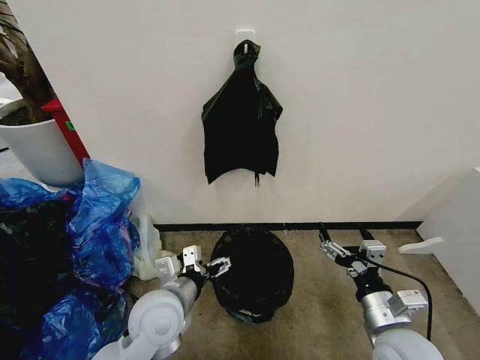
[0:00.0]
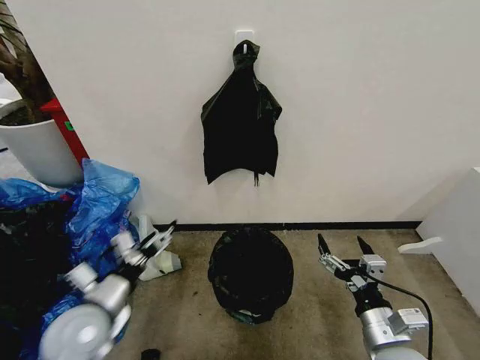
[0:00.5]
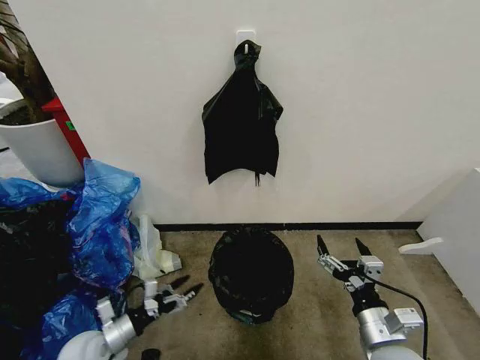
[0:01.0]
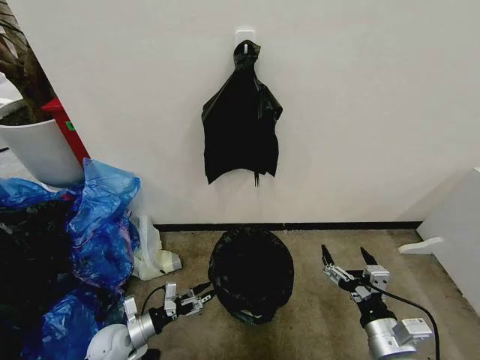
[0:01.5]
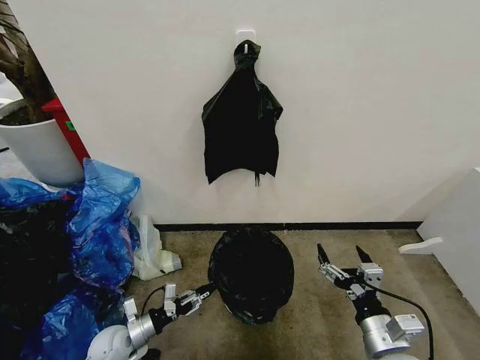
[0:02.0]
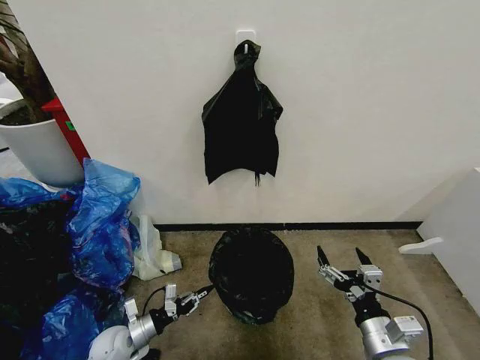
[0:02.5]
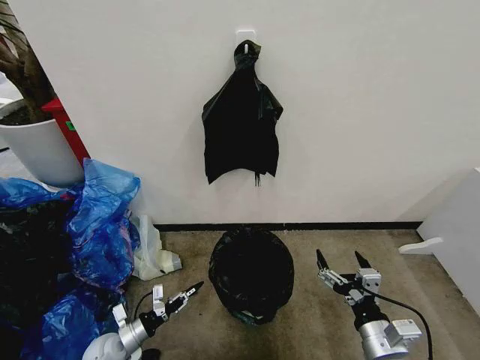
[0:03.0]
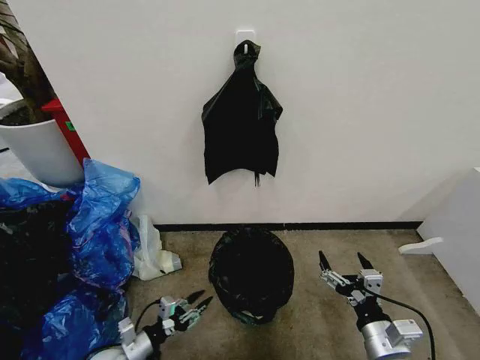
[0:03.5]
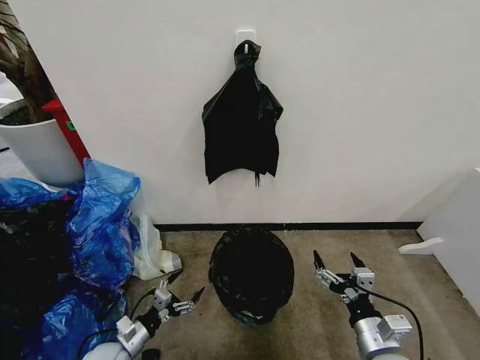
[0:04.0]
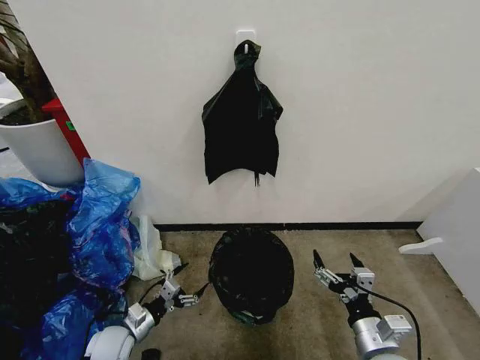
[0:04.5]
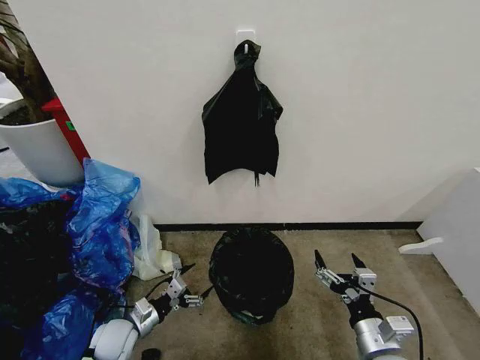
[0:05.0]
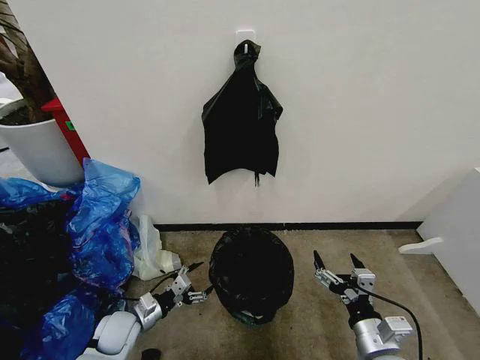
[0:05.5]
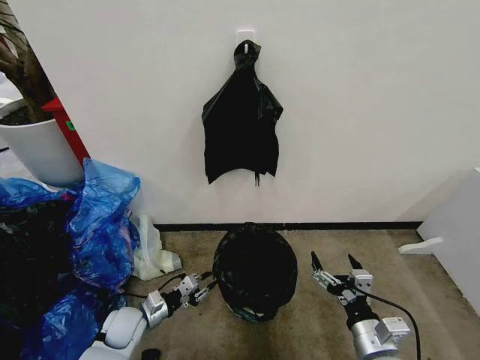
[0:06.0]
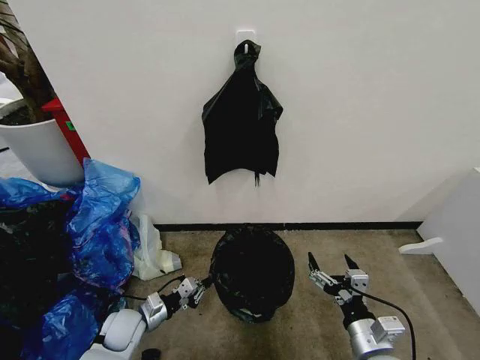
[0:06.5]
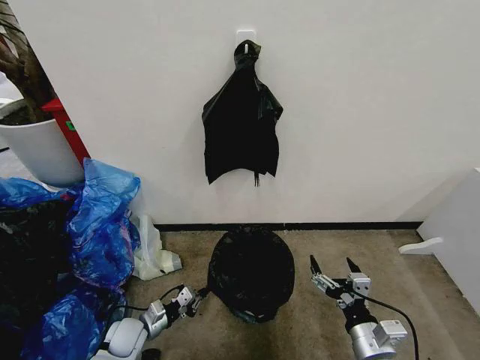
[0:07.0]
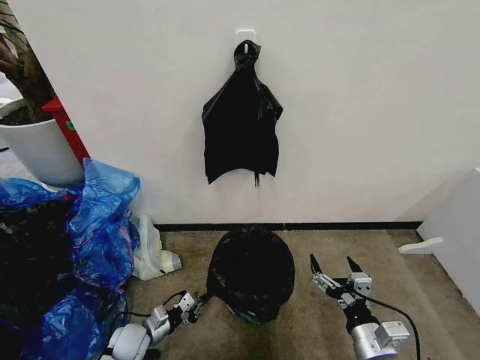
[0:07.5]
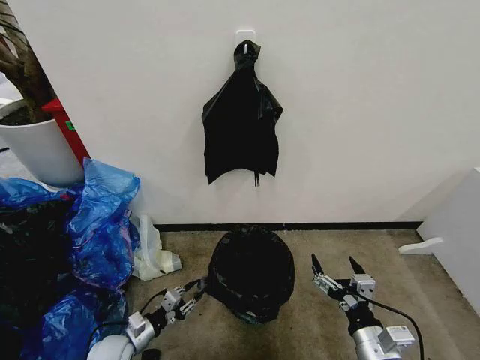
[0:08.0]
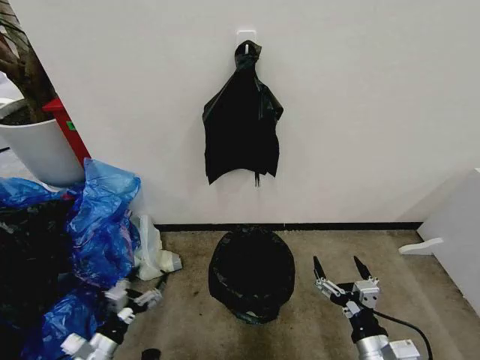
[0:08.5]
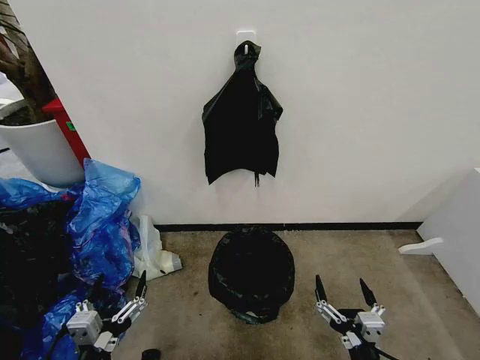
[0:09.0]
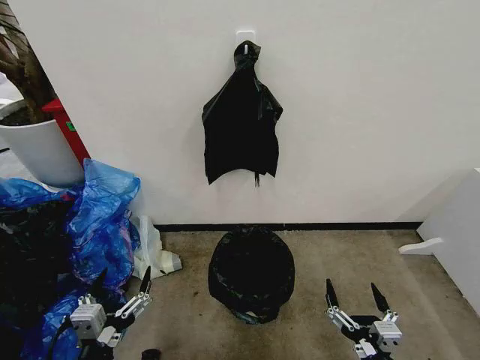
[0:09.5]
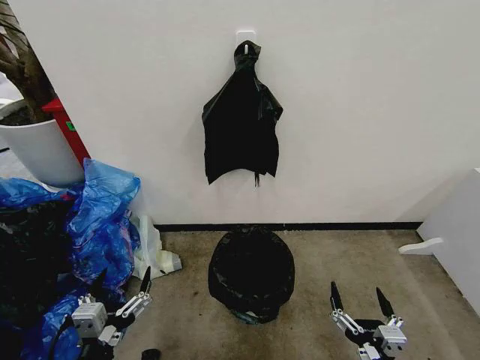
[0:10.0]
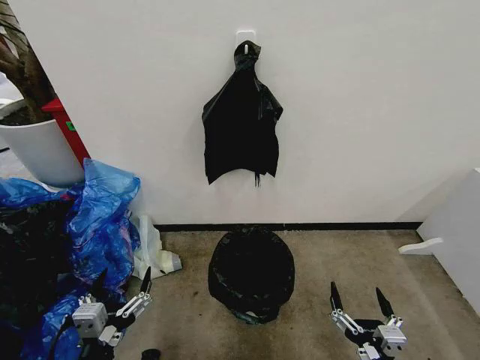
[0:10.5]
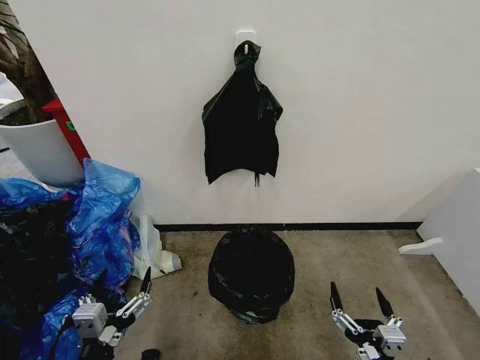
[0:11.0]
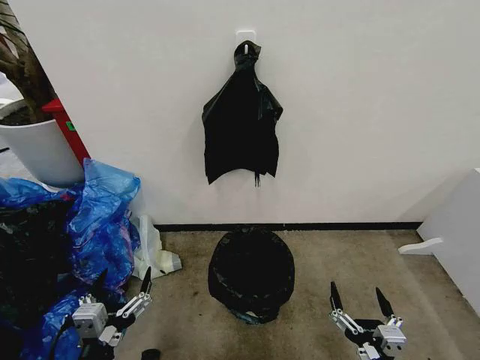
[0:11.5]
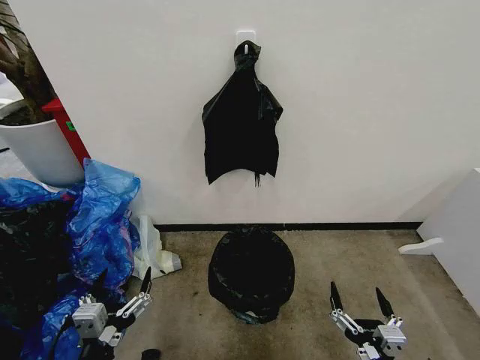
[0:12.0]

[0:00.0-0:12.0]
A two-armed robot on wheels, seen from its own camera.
Task of the whole recording: Place the garbage bag over the trash bin.
0:00.0 to 0:02.0: The left gripper goes some 30 cm downward and to the left, and closes up.
0:02.0 to 0:04.0: The left gripper opens its fingers.
0:04.0 to 0:06.0: The left gripper moves forward, some 5 cm, and closes its fingers.
0:06.0 to 0:08.0: The left gripper travels backward by approximately 5 cm.
0:08.0 to 0:10.0: The right gripper goes approximately 10 cm backward. Meanwhile the left gripper goes approximately 25 cm upward and backward, and opens its fingers.
0:10.0 to 0:12.0: The two grippers keep their place.
